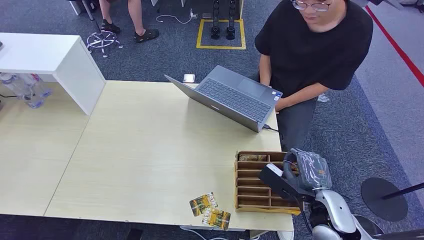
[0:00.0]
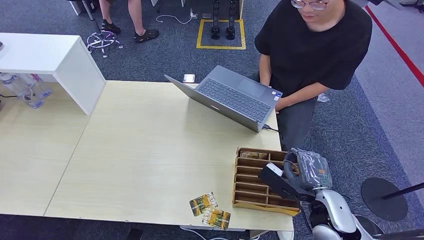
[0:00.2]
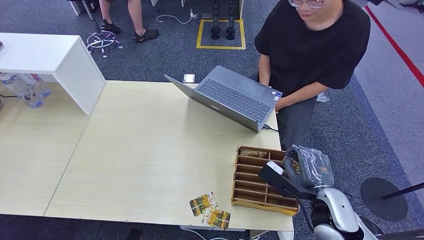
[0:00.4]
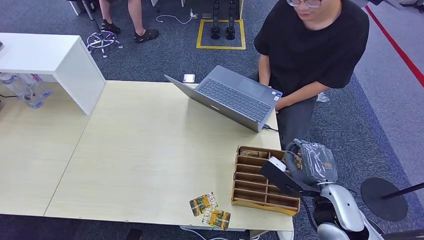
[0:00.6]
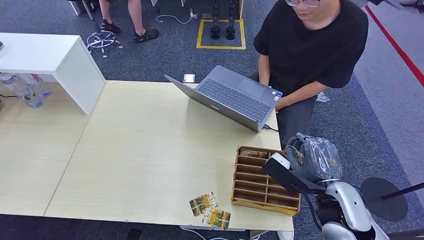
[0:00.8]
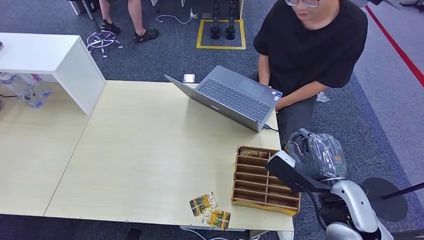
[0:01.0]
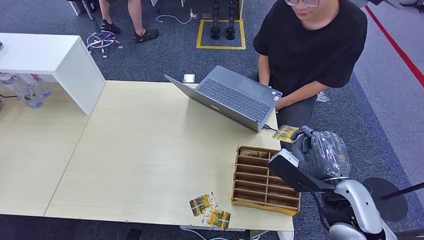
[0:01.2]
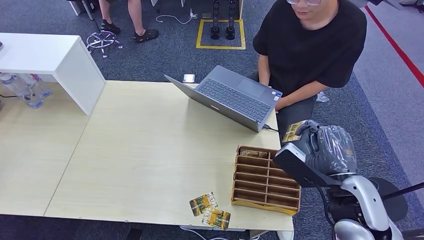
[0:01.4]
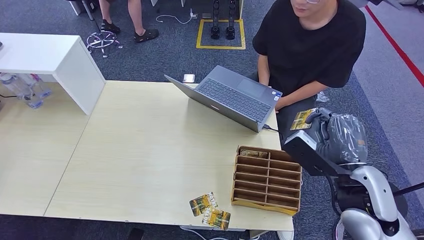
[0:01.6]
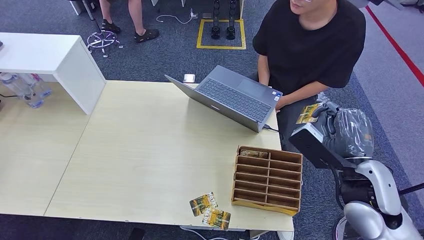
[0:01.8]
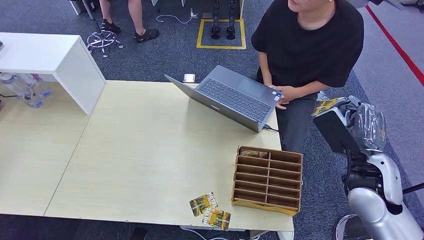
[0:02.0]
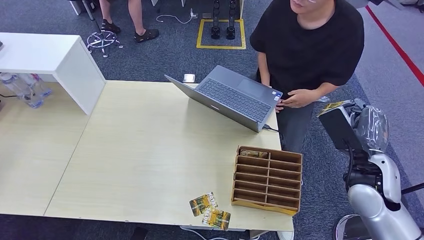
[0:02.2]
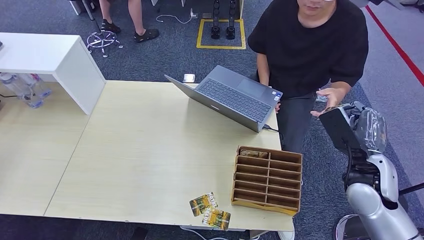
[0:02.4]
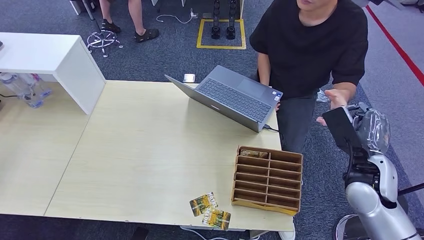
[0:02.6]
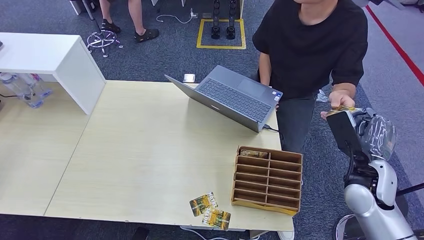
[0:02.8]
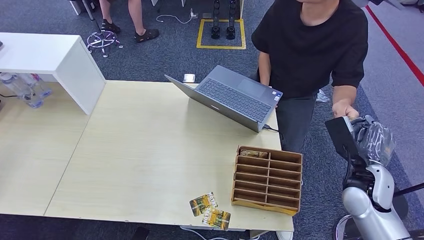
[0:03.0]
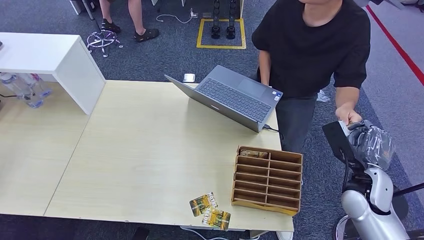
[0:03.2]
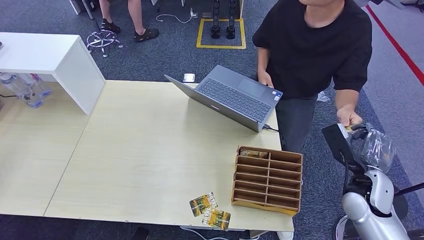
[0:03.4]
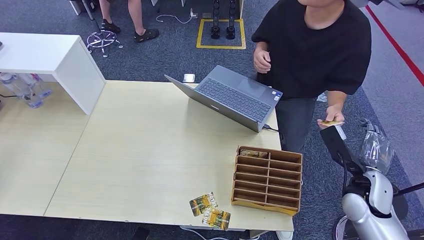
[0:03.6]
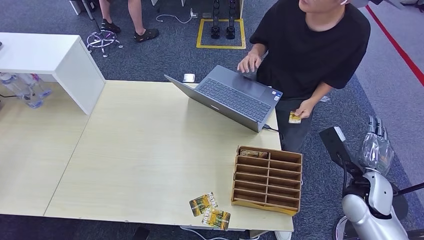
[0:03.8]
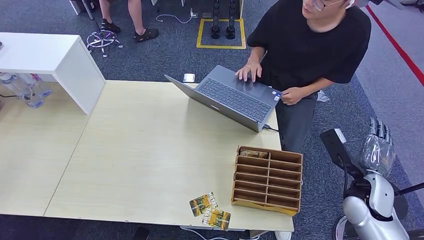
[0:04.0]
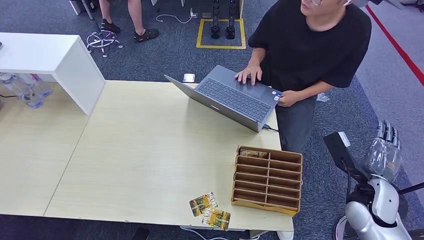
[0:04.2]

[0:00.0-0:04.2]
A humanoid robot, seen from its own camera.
Step, 0:00.0 to 0:01.0: Pick up the key card from the card box.
Step, 0:01.2 to 0:04.2: Hand the key card to the target.
0:01.4 to 0:02.8: The right hand travels to the right and forward by some 10 cm.
0:02.8 to 0:04.2: The right hand travels downward by roughly 5 cm.
